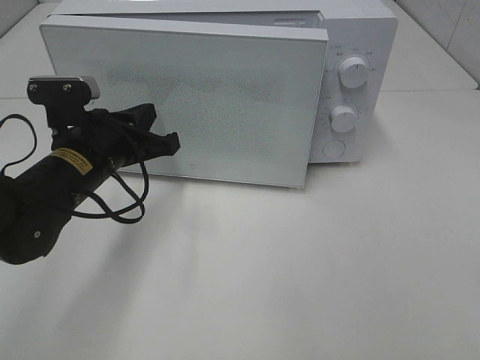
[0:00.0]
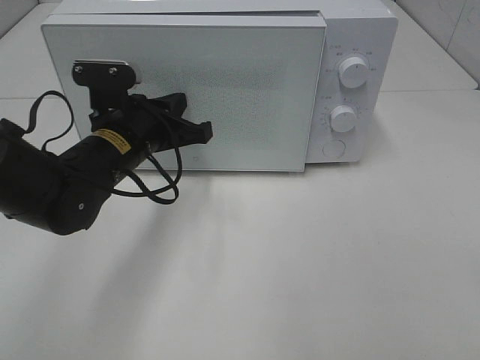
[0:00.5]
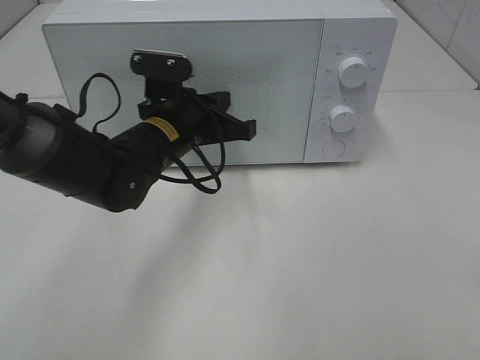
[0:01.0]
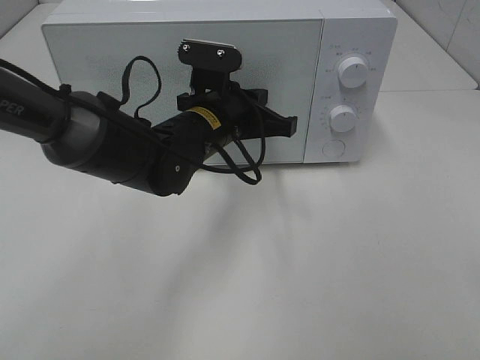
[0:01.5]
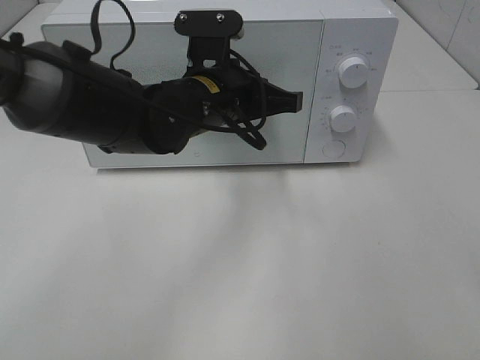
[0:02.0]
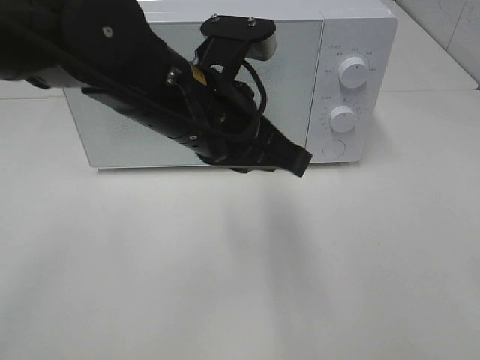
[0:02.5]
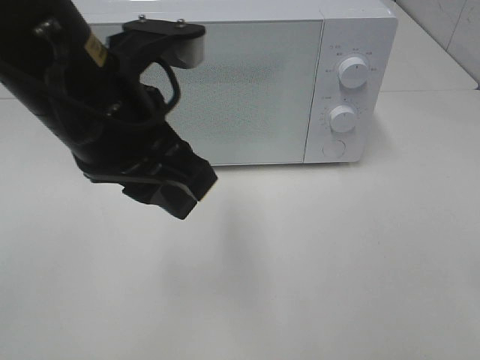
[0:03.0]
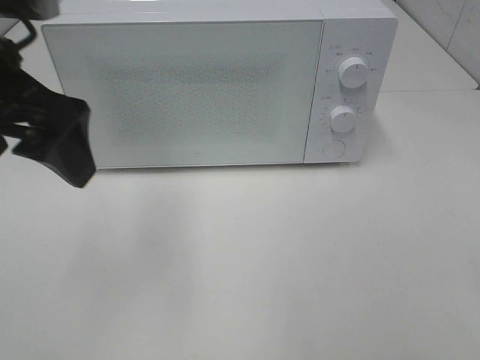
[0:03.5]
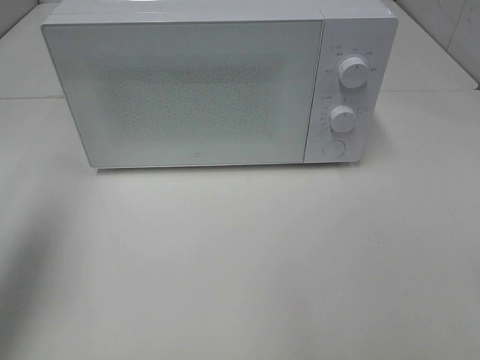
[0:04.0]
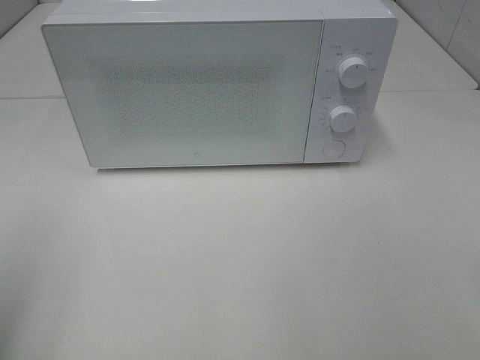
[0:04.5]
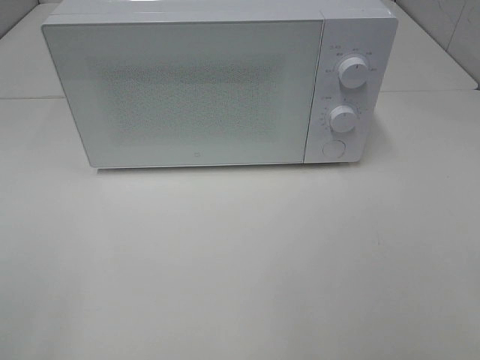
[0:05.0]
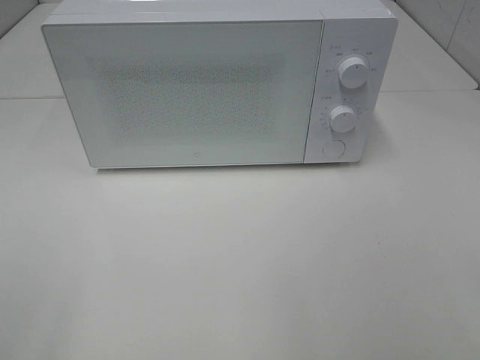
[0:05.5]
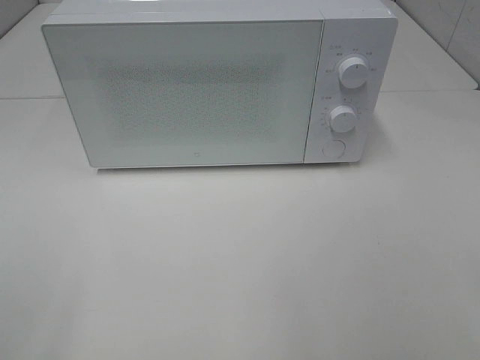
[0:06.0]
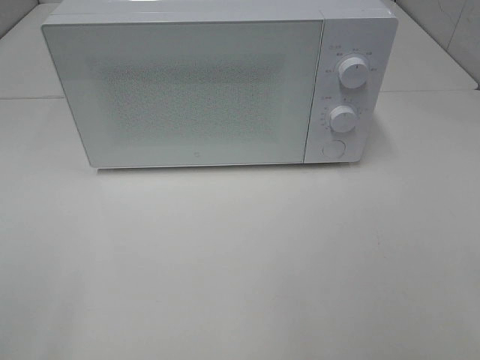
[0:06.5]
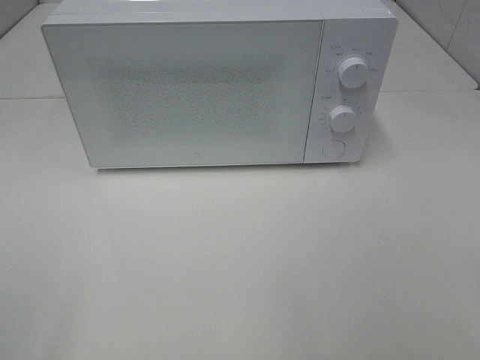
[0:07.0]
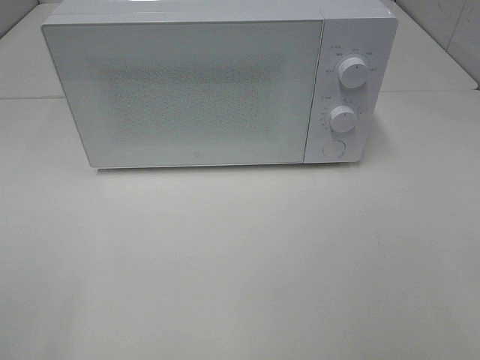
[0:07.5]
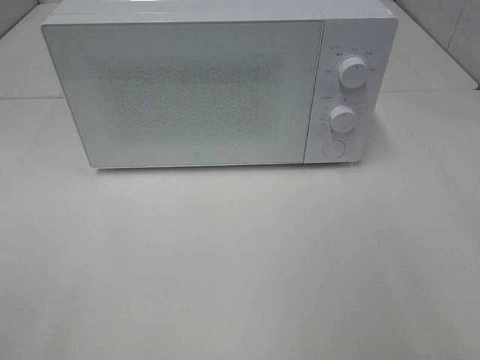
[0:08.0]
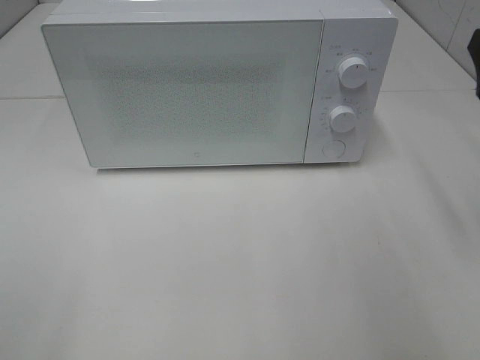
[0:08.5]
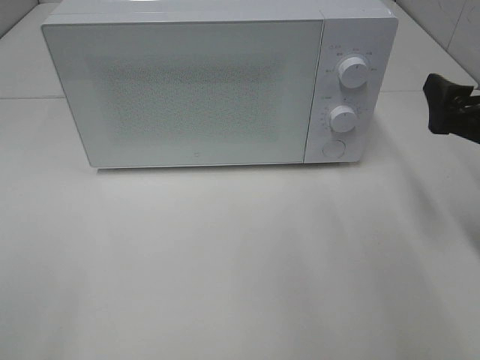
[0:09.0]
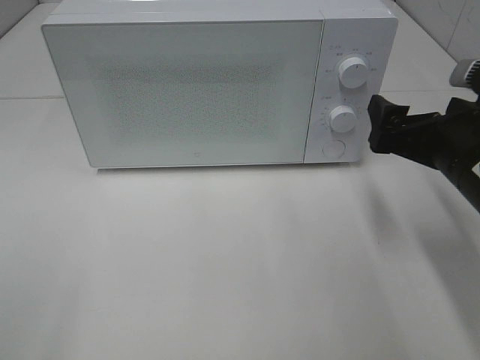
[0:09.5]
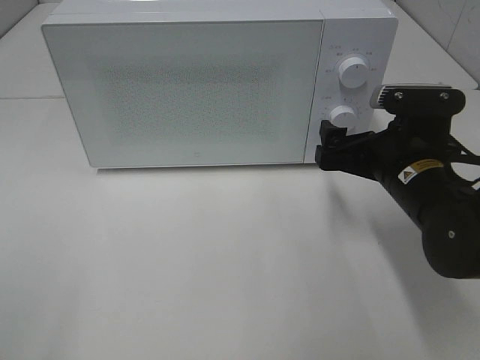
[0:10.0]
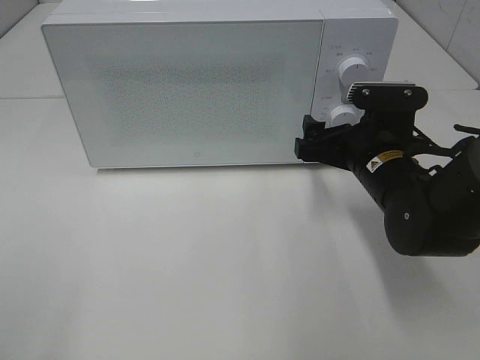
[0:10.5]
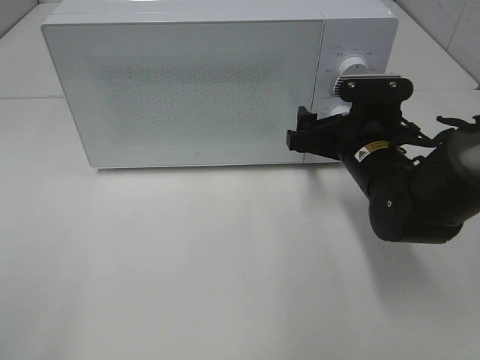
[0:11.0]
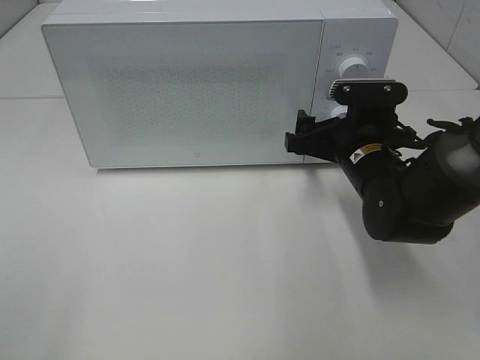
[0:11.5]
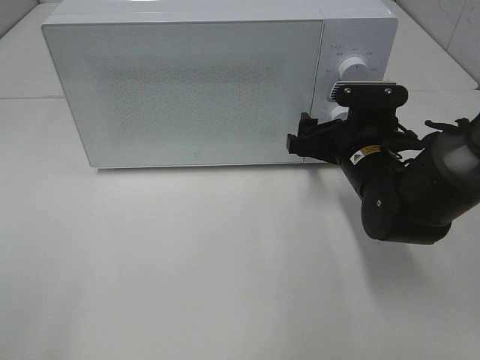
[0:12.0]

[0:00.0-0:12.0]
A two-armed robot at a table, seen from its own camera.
Task of the whole recording: Heat the burger.
0:00.0 to 0:02.0: The left gripper moves to the right and upward, some 15 cm.
0:02.0 to 0:04.0: The left gripper goes some 35 cm to the left and upward, and opens.
0:04.0 to 0:06.0: The left gripper moves backward, about 25 cm.
0:08.0 to 0:10.0: The right gripper travels downward, forward and to the left by about 25 cm.
0:10.0 to 0:12.0: The right gripper shifts roughly 5 cm forward.

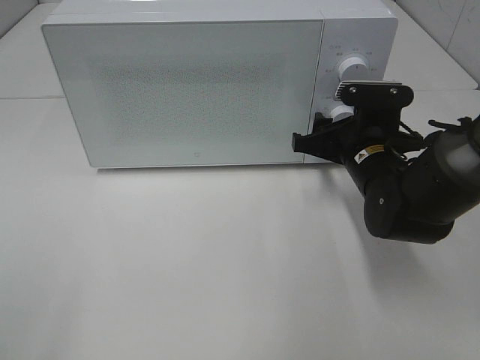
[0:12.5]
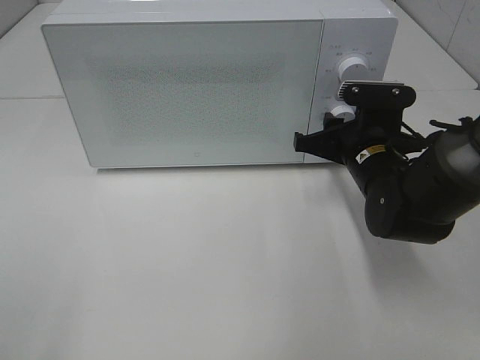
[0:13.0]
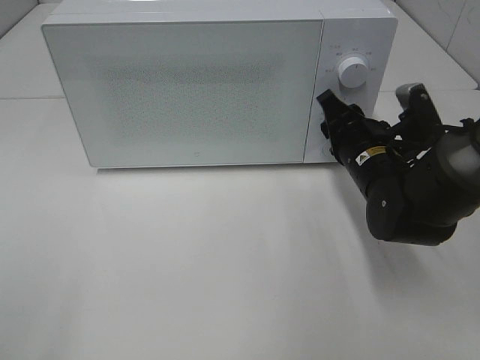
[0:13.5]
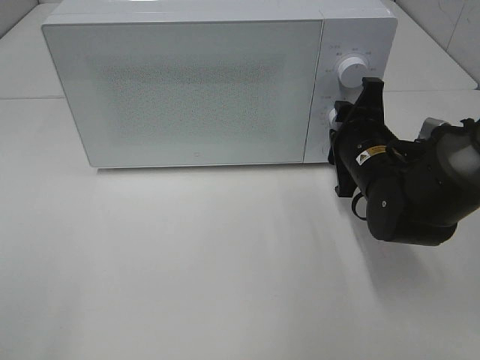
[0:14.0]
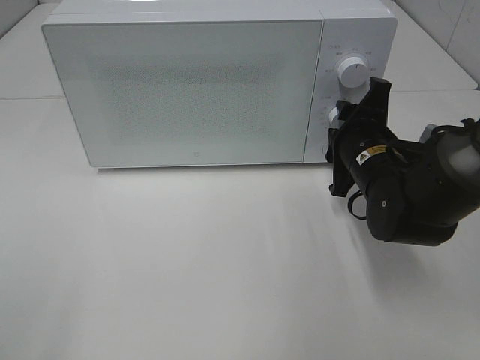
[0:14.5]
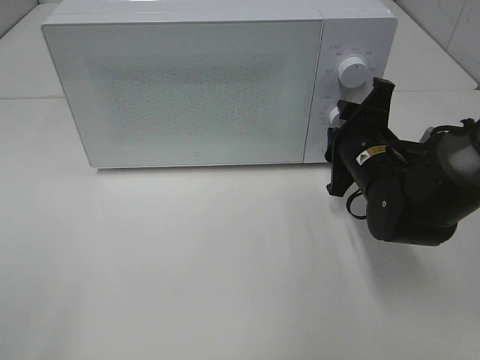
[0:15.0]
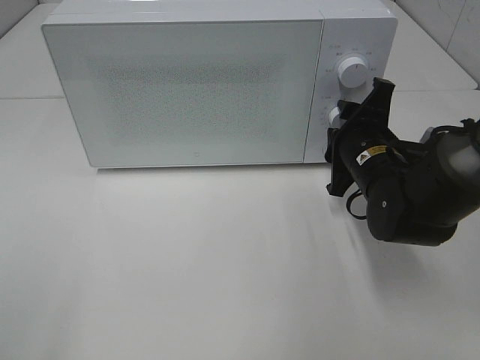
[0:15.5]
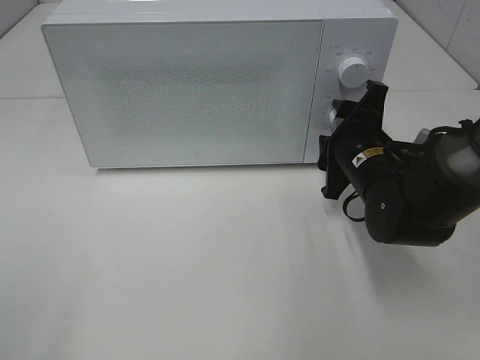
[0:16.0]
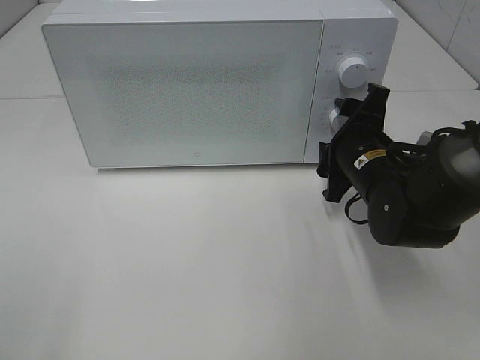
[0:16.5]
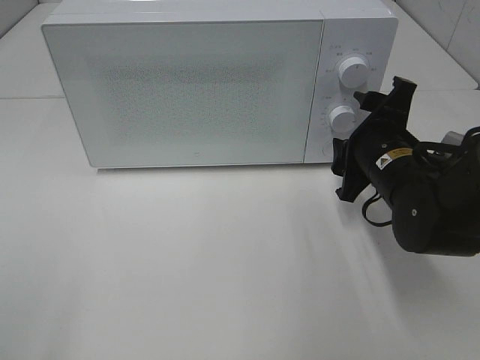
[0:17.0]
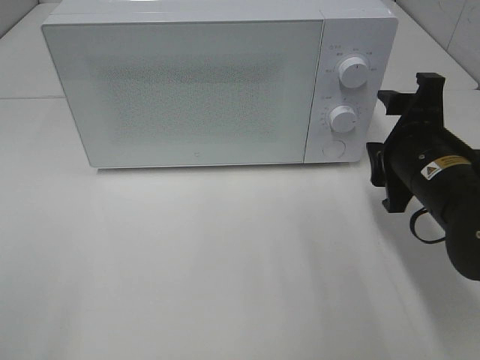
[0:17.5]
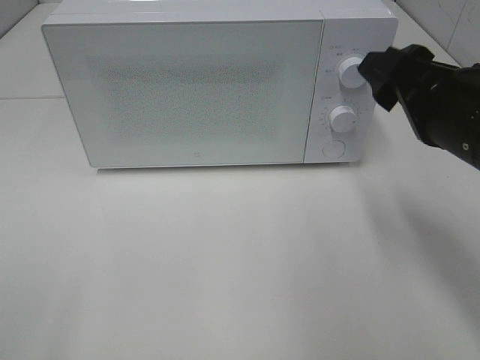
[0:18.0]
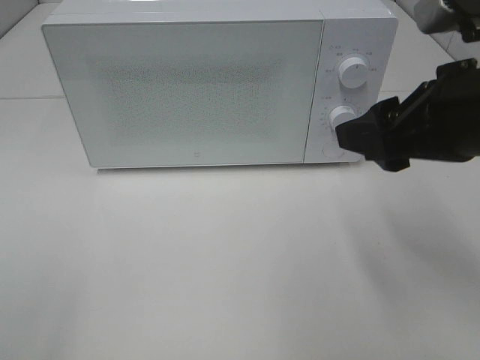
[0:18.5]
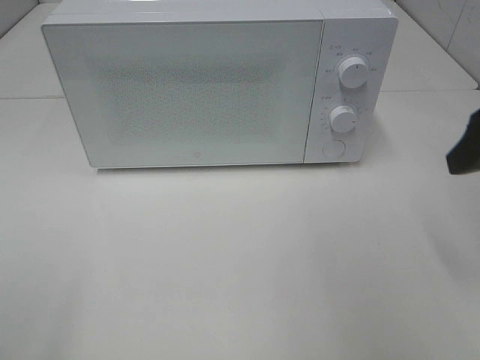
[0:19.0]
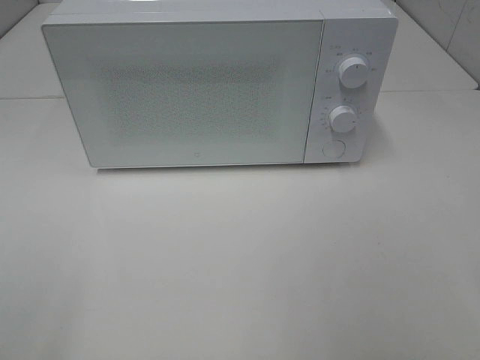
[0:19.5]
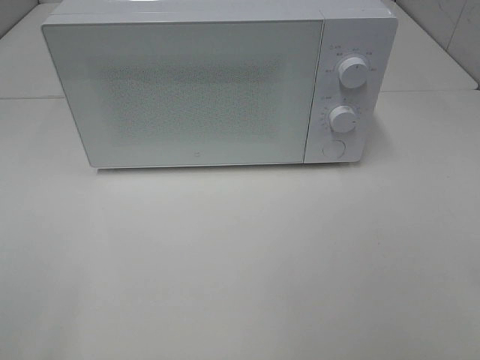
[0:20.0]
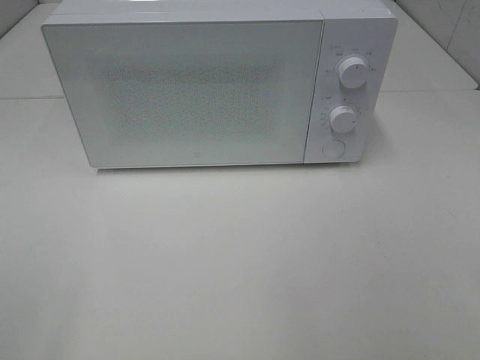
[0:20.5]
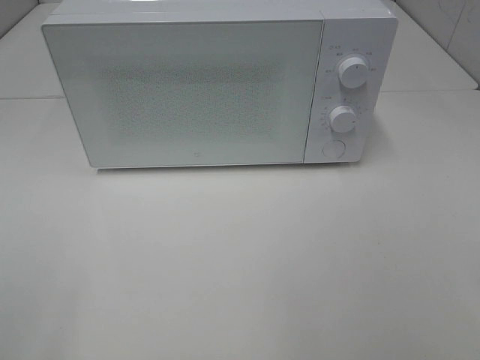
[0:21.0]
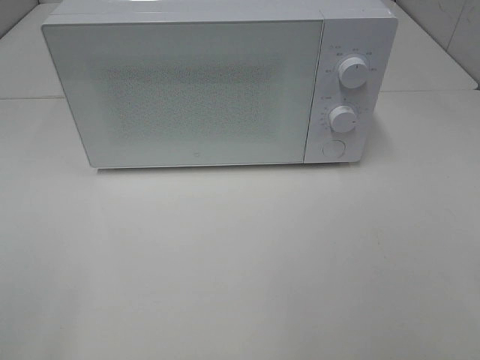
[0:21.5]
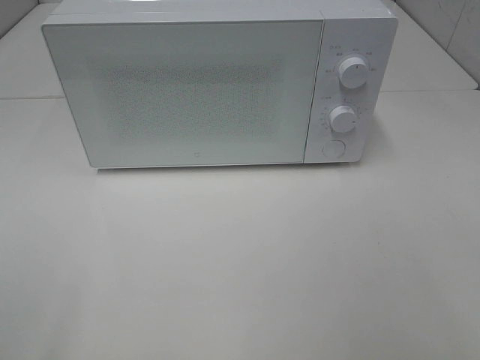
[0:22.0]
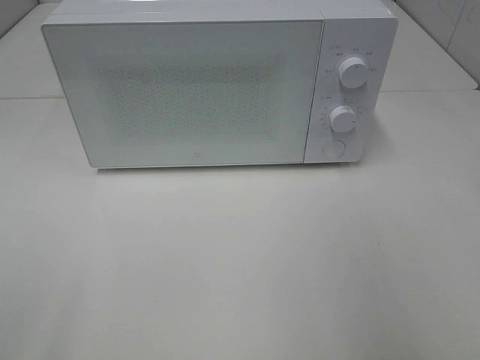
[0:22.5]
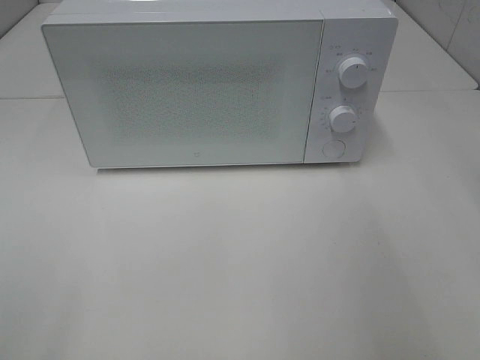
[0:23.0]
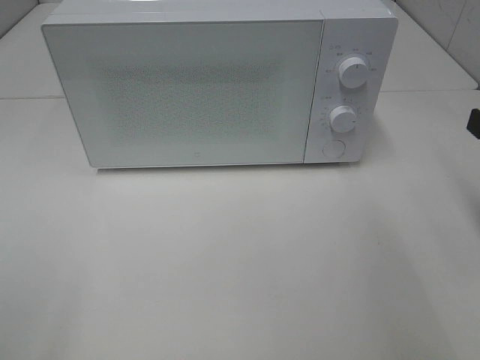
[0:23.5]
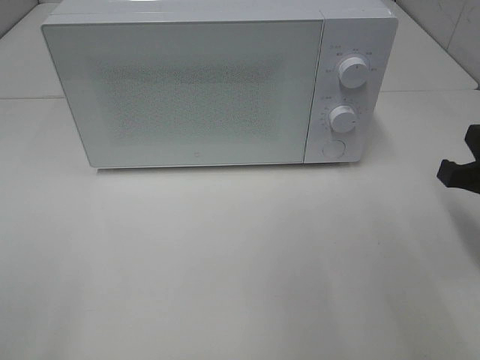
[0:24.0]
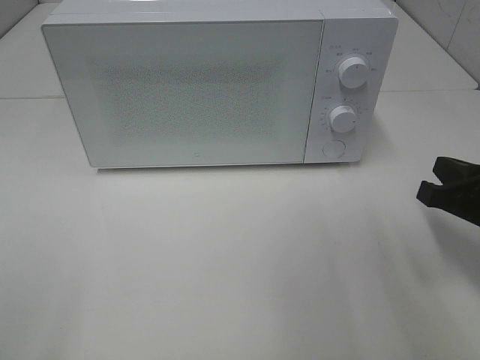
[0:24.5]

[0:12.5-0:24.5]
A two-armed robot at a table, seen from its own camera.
Task of the whole recording: Heat the burger.
Step, 0:12.5 to 0:15.5: Right hand: twist timer button.
0:14.5 to 0:16.5: The two grippers keep their place.
0:16.5 to 0:18.5: The right gripper is displaced upward and backward by some 20 cm.
0:18.5 to 0:20.5: The right gripper heads backward and to the right, covering approximately 25 cm.
0:22.5 to 0:24.5: The right gripper is displaced downward and forward by about 20 cm.

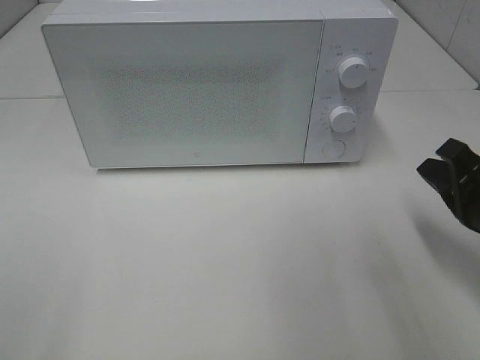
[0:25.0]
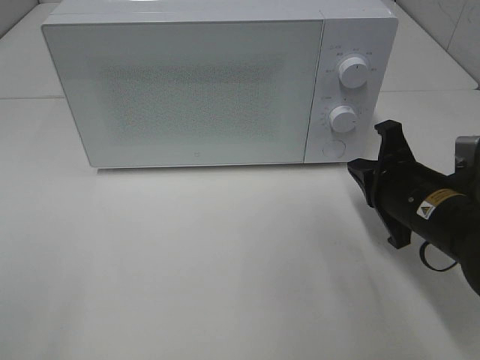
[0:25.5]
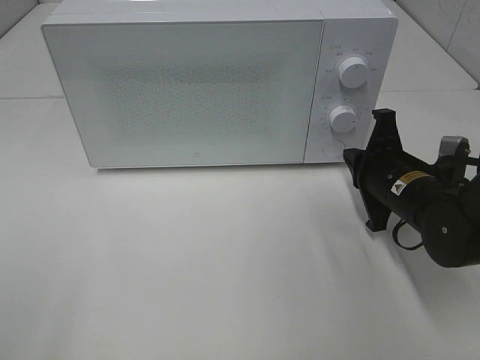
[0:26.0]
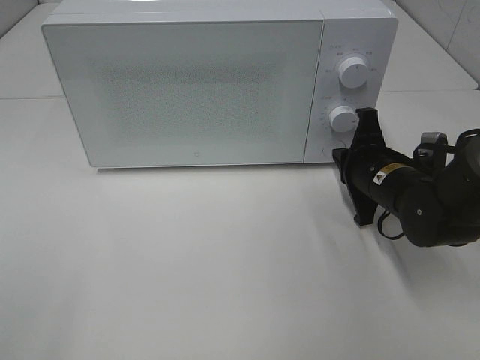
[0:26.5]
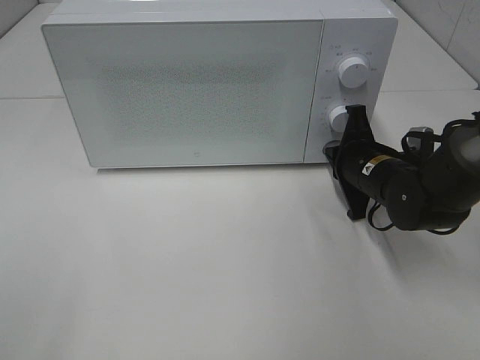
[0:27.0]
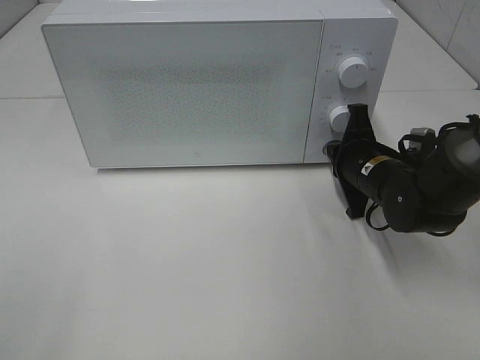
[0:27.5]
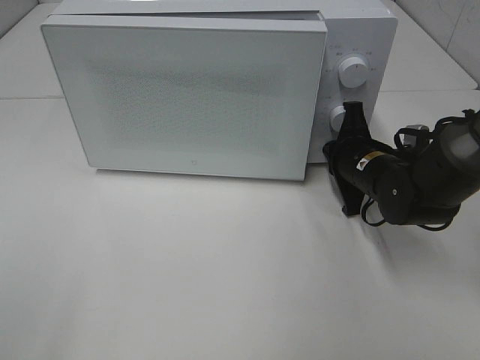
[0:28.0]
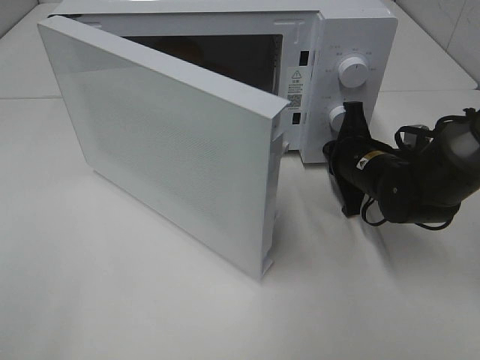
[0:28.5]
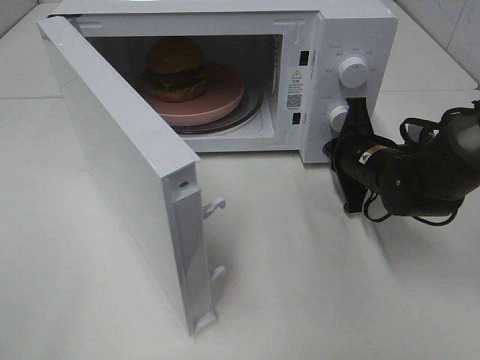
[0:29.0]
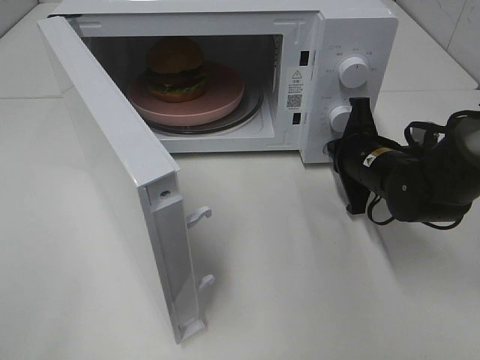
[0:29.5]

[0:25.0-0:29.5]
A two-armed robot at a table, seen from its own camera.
Task of the whole recording: Heat the burger.
0:25.0 to 0:27.0: The right gripper goes approximately 15 cm forward, to the left and downward.
